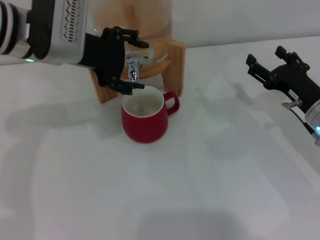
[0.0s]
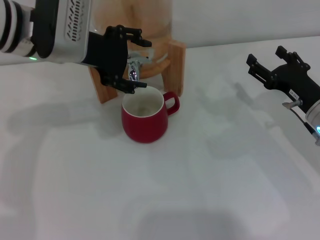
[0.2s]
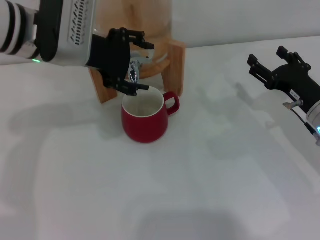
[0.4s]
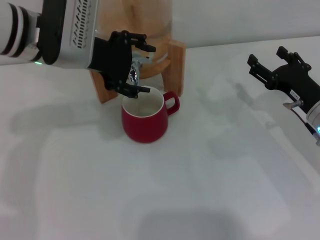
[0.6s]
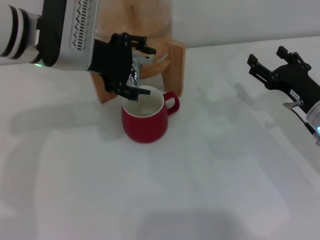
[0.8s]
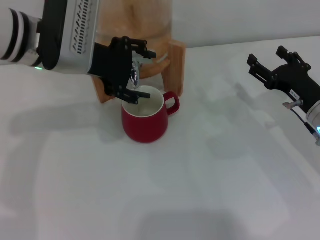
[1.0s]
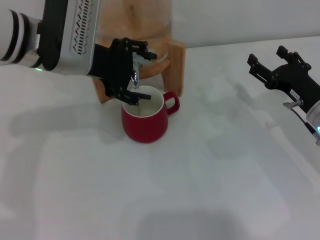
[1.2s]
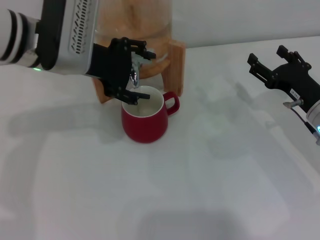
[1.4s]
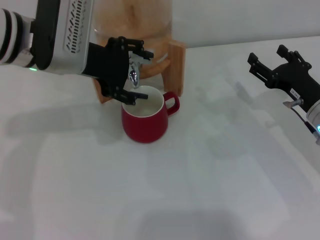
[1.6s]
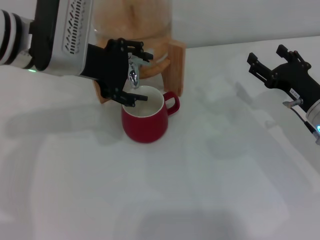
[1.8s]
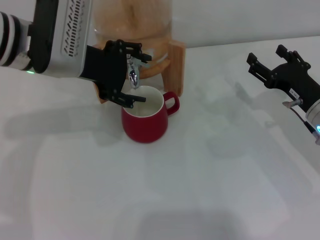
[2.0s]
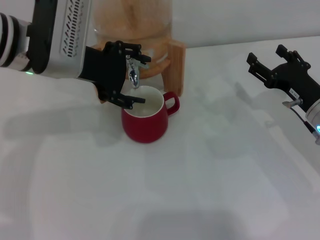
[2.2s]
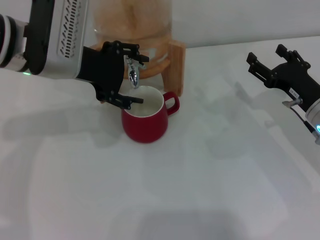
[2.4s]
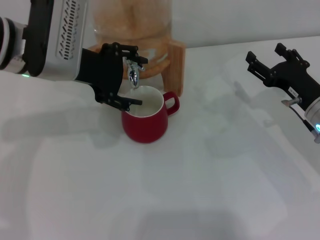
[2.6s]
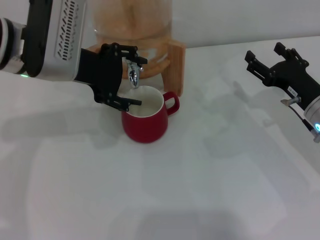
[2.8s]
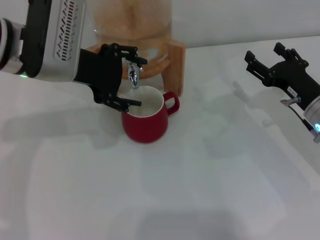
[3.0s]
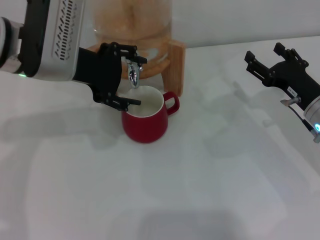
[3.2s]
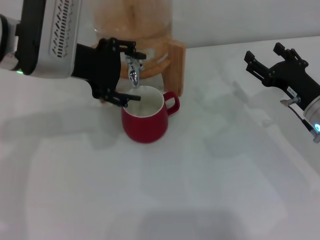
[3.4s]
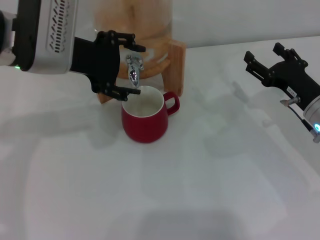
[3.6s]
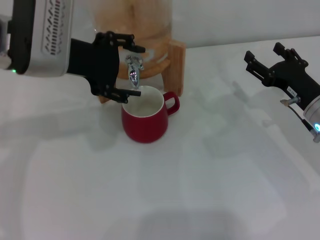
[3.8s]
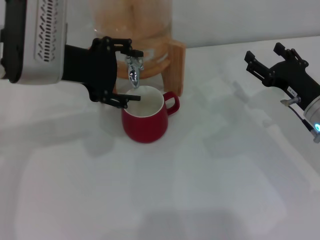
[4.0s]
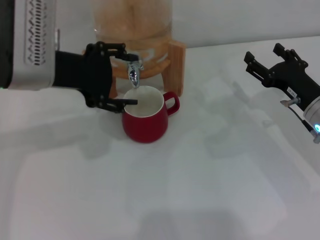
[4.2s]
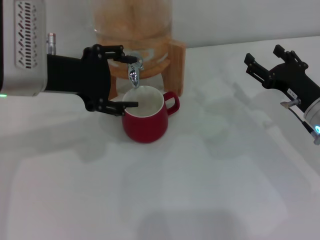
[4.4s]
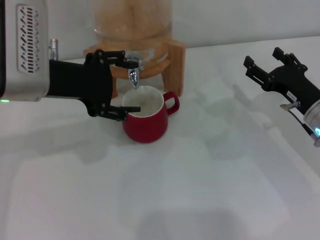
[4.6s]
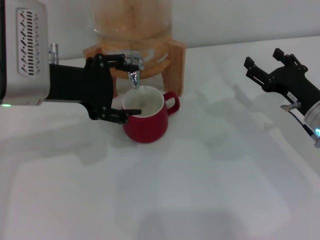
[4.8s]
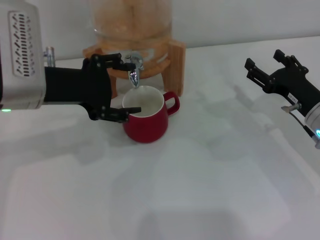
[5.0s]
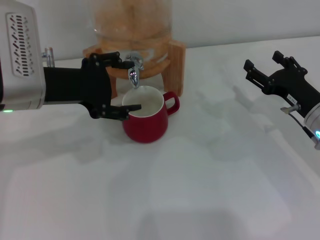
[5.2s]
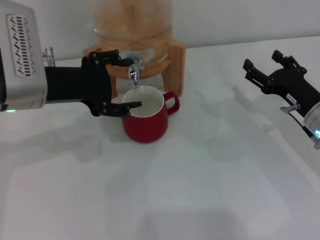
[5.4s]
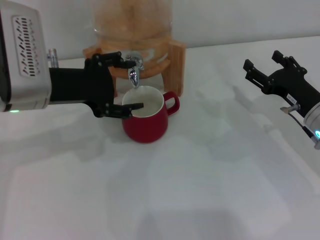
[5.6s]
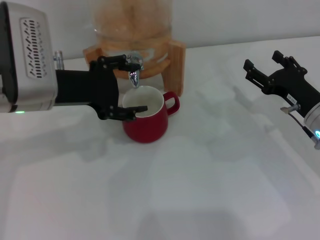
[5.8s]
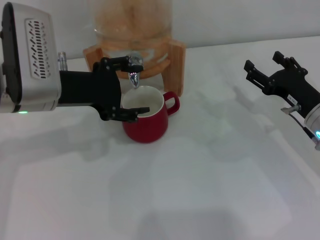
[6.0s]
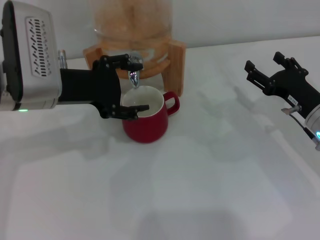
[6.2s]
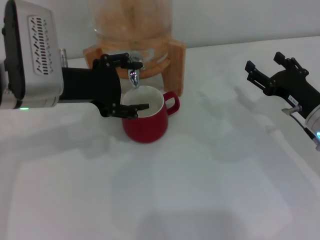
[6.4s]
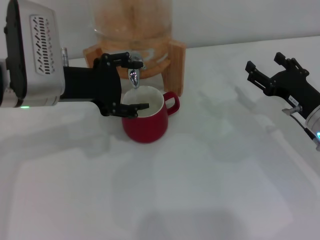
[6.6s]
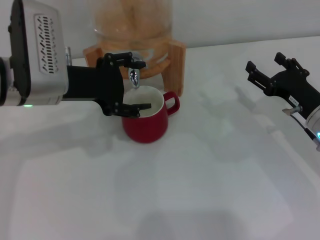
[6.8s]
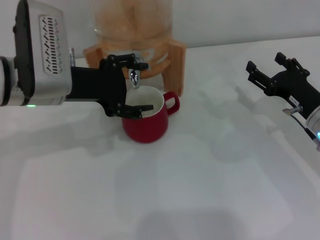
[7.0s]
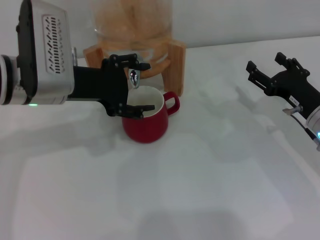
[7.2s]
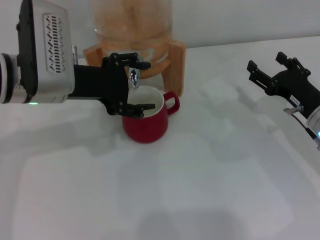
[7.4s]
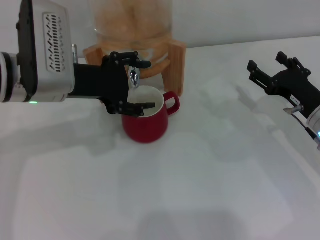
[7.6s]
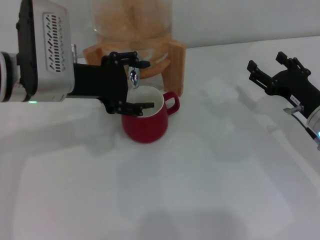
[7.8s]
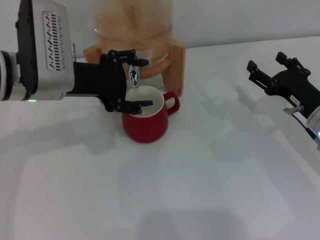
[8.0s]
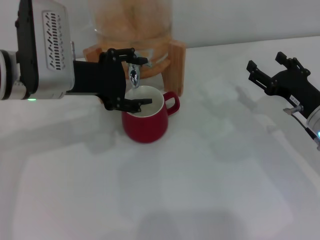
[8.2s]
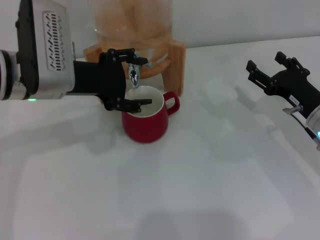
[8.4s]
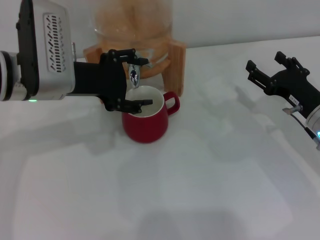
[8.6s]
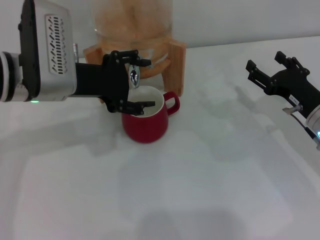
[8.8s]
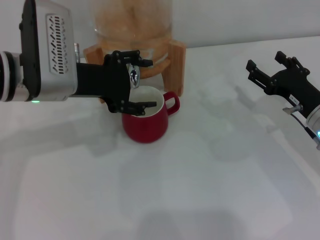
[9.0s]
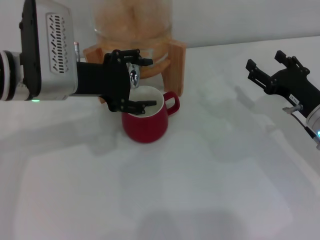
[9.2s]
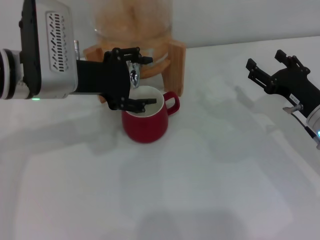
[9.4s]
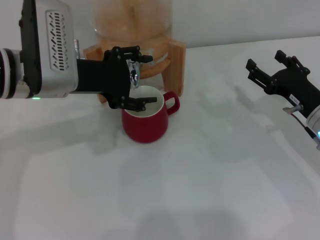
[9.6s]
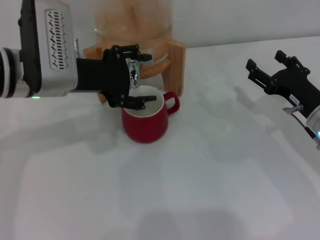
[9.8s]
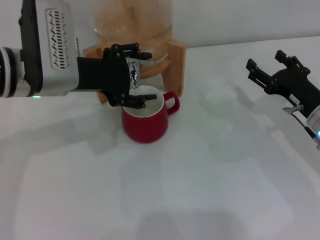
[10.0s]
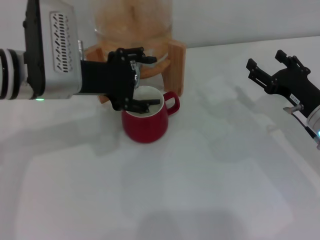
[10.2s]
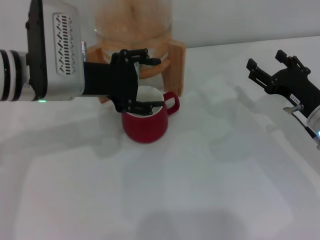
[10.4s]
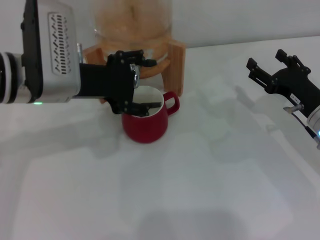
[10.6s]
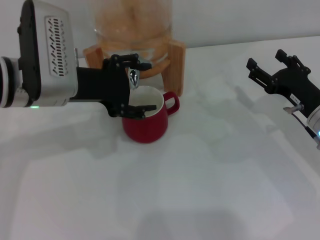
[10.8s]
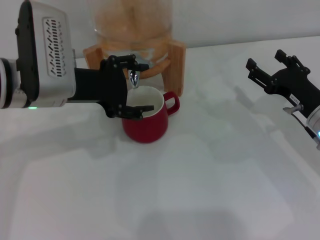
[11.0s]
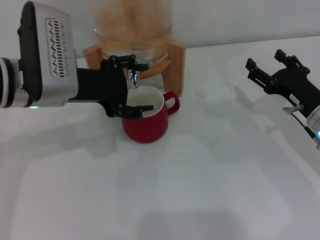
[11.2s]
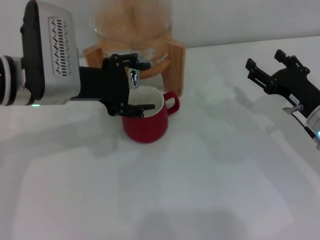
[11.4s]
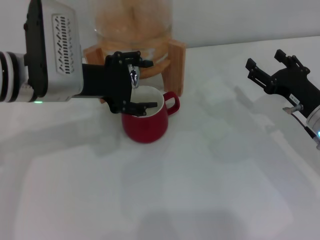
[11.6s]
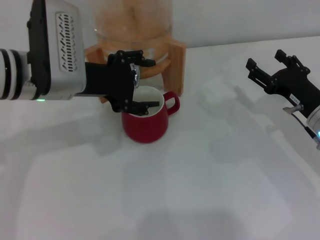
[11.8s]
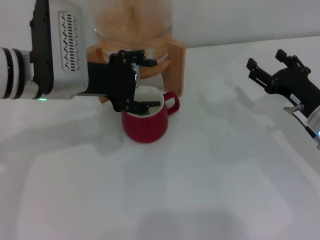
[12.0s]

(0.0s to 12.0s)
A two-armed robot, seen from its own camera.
Task of the whole recording: the right gripper pick up the red cup and place it horizontally under the faucet, the left gripper turn on the faucet to fill the cup, and then turn off the faucet.
Step, 0.0s - 4.8s: Open the dispenser valve and fill the cup with water with the left gripper.
0.0s - 1.6s: Both grippers stay about where they are.
1.6s - 3.0s: Both grippers stay about where they are.
3.0s - 4.4s: The grippers make only small movements.
4.4s - 7.6s: The grippers make only small movements.
7.6s - 10.4s: Neither gripper changes place.
10.4s - 12.0s: There are only small adjustments of the grippers.

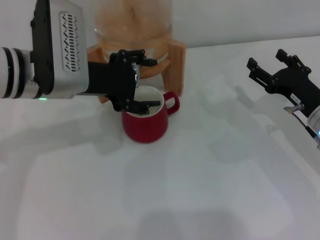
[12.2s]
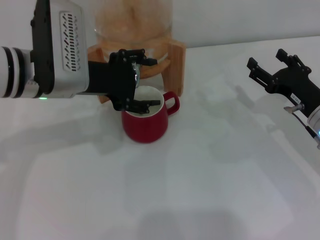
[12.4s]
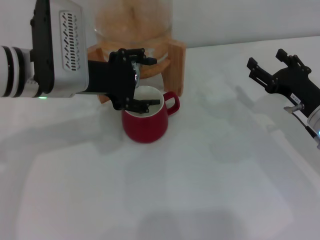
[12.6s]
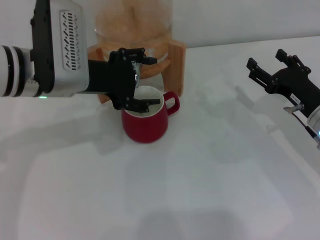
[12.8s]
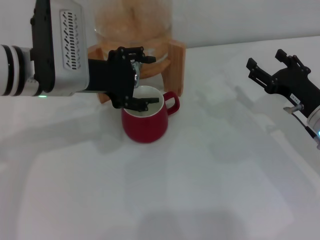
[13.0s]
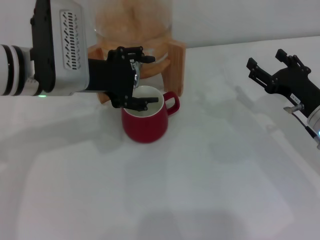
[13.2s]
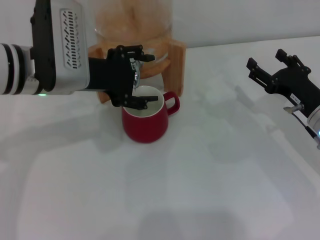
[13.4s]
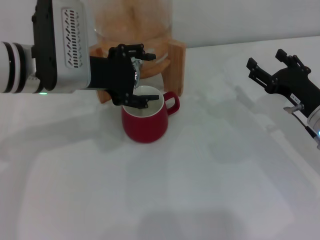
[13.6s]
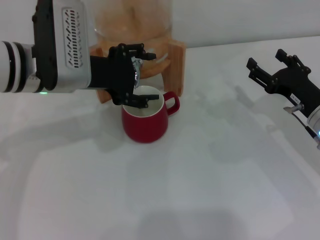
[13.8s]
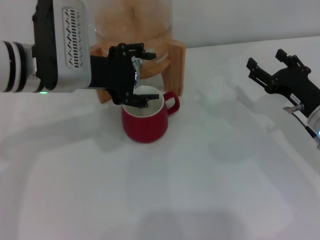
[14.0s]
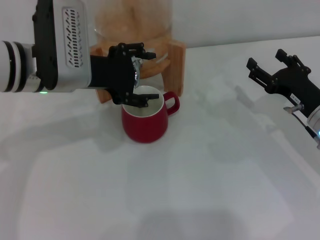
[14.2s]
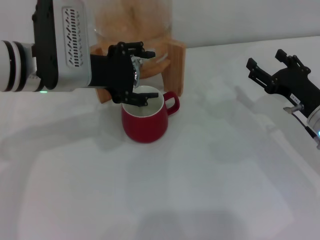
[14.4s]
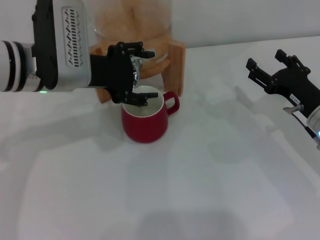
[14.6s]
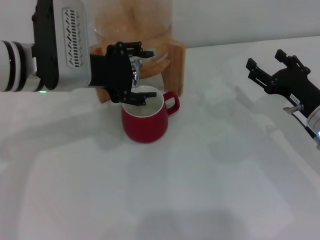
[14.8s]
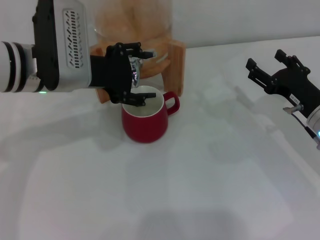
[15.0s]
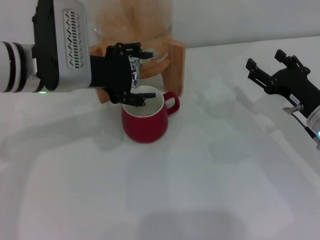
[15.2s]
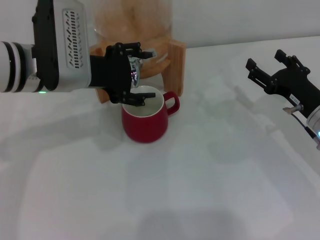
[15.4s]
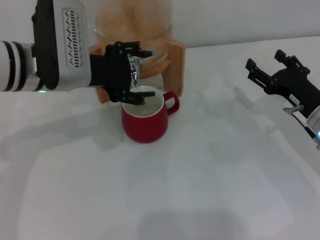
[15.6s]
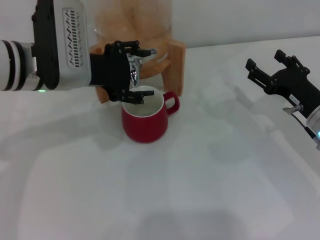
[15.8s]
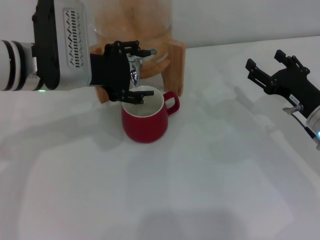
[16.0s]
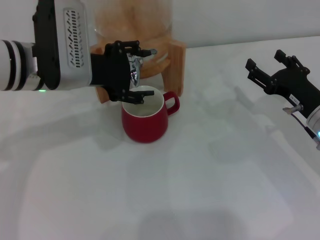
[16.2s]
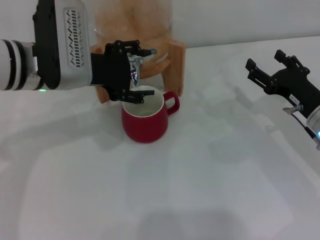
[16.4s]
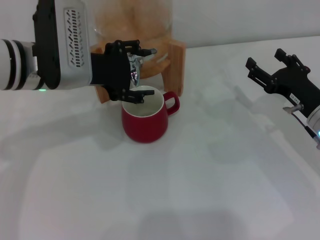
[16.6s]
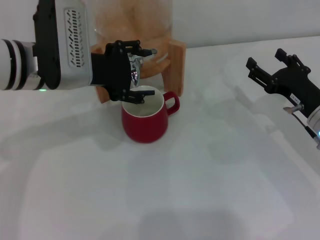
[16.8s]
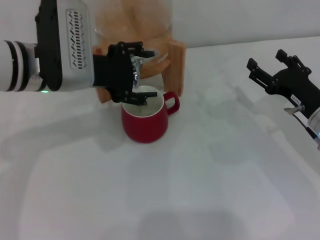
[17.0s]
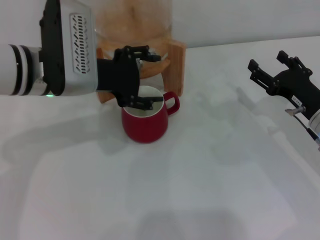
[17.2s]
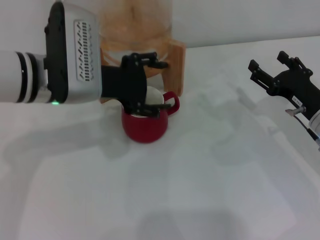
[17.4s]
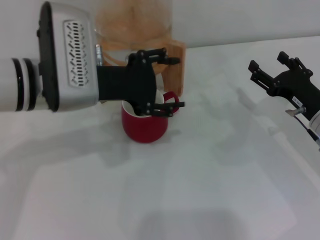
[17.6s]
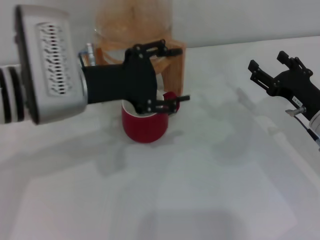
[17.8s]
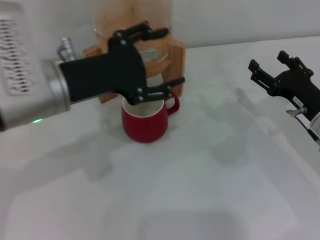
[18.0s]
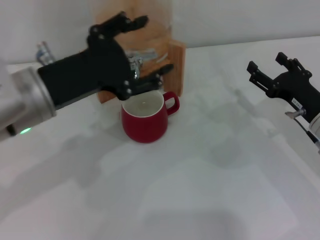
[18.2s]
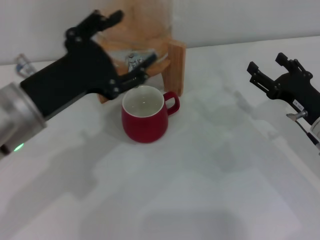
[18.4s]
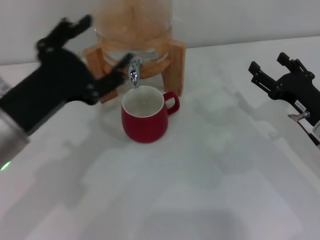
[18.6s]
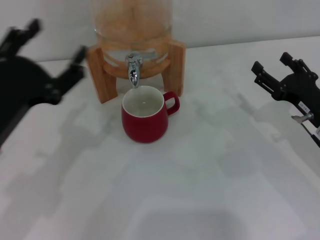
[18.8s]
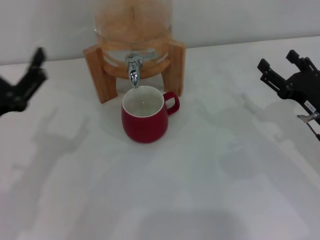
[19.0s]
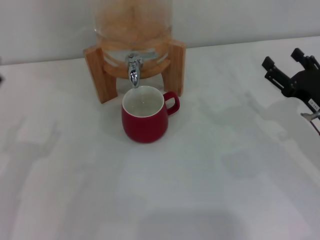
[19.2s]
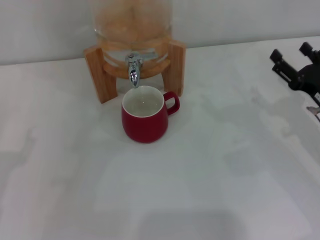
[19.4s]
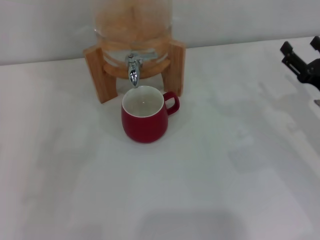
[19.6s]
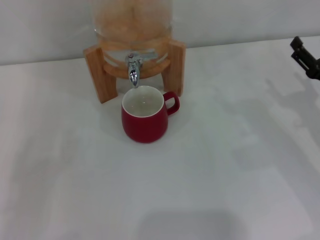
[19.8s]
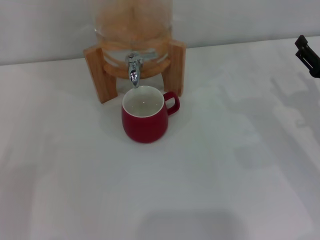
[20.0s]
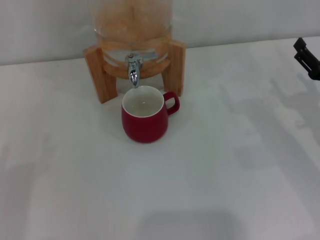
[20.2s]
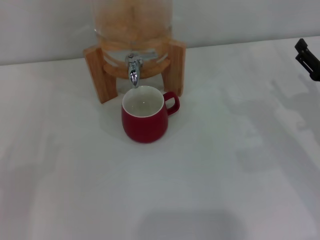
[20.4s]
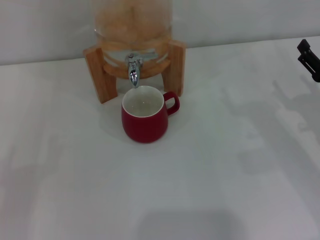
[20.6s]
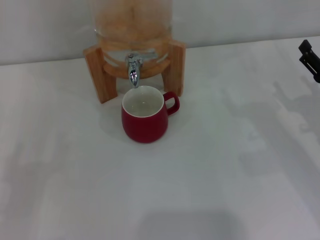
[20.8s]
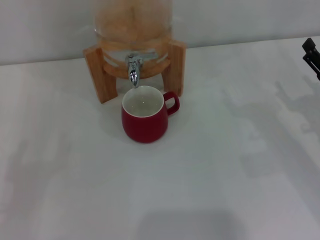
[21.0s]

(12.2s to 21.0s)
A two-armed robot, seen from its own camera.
Task of the whole recording: the right gripper pick up the red cup and place it horizontally under the faucet, the left gripper turn on the faucet to fill the cup, and then turn off the faucet.
Step, 12.2s - 17.2s: Close the dispenser valve with the left gripper.
12.2s - 15.2s: The two grippers keep their place.
15.2s - 16.6s: The two grippers keep their place.
16.6s - 18.0s: The left gripper moves backward, roughly 5 cm.
18.0s - 19.6s: The left gripper heads to the left, backward and downward, covering approximately 25 cm.
19.6s - 21.0s: The grippers stay close to where they were, moving slightly.

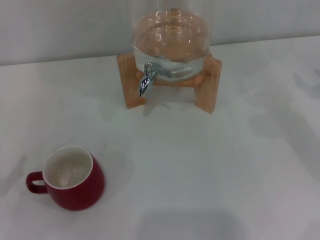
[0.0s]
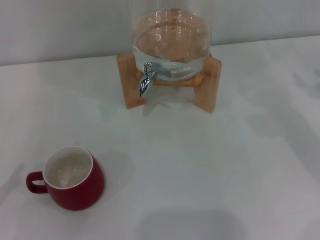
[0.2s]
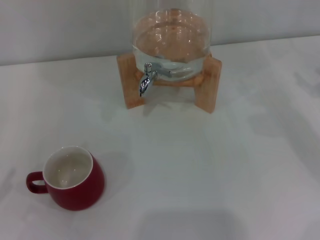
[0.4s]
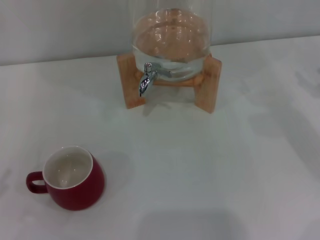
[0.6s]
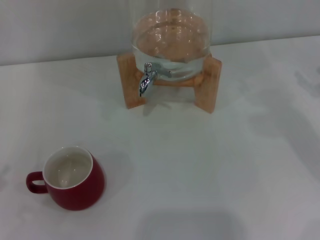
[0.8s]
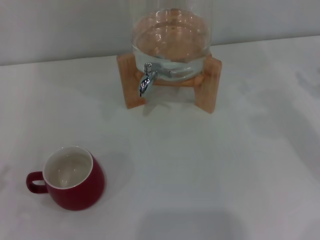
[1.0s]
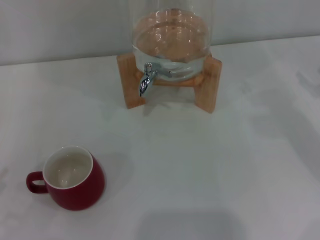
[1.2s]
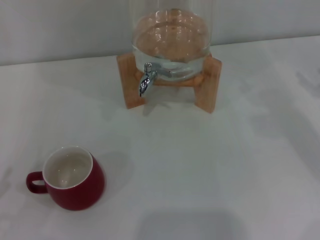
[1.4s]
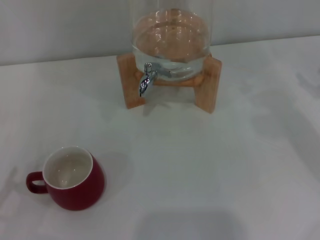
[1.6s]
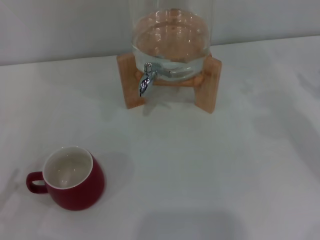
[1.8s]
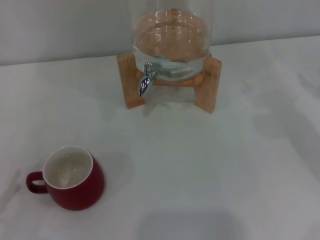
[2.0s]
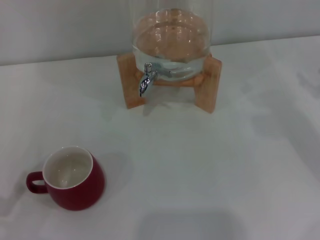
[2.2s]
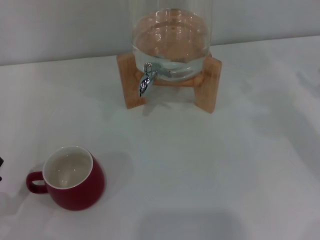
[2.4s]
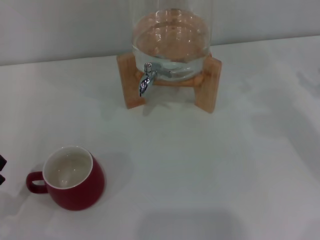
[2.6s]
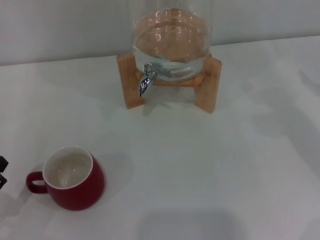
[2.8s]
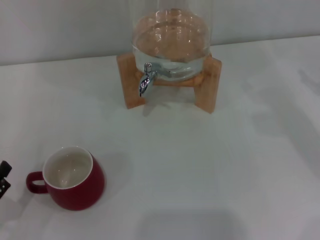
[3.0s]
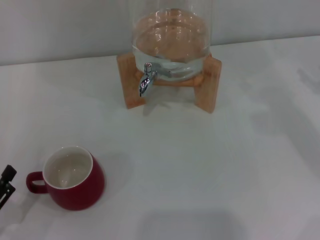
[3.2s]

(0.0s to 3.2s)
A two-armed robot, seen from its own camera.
Task of the whole recording: the left gripper pick up the red cup and place it horizontally under the faucet, the right gripper turn on the faucet to fill the cup, and then turn off the faucet.
1.6s - 3.2s: The left gripper moves about 5 cm.
